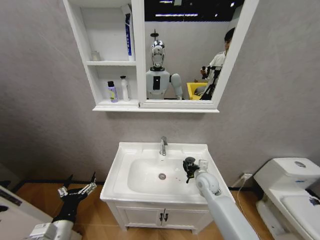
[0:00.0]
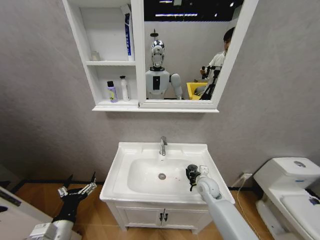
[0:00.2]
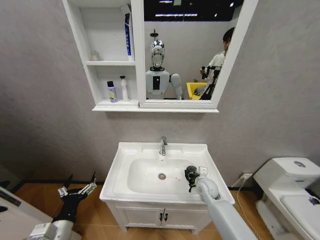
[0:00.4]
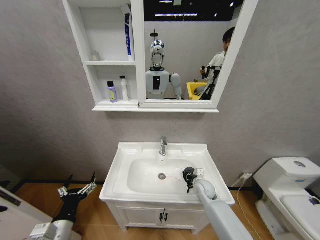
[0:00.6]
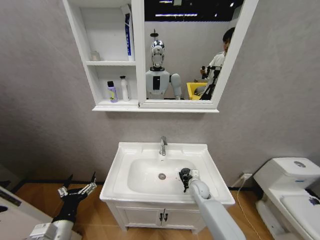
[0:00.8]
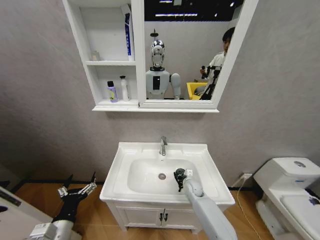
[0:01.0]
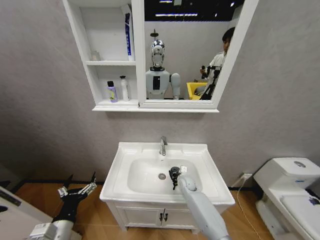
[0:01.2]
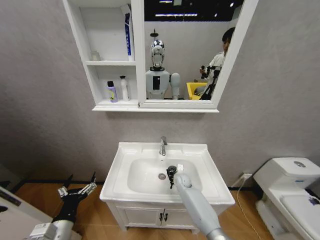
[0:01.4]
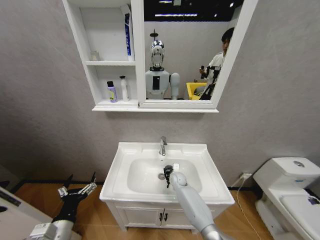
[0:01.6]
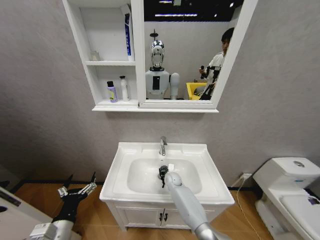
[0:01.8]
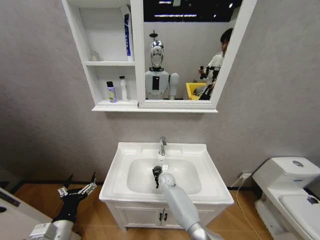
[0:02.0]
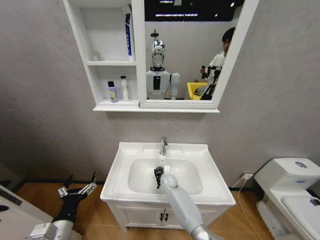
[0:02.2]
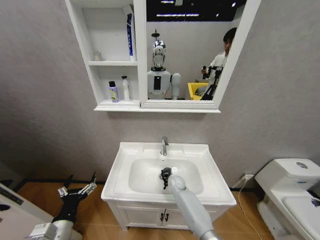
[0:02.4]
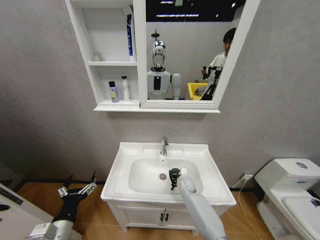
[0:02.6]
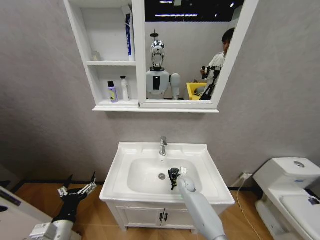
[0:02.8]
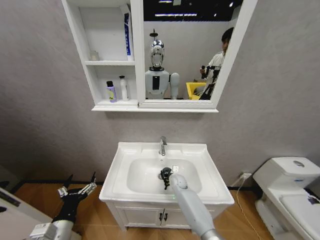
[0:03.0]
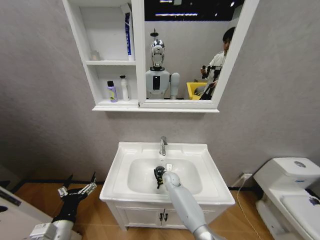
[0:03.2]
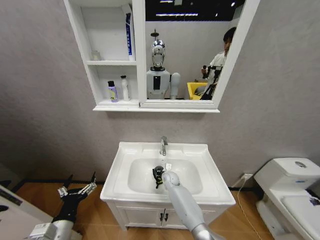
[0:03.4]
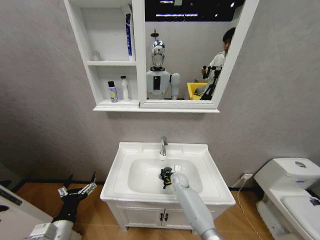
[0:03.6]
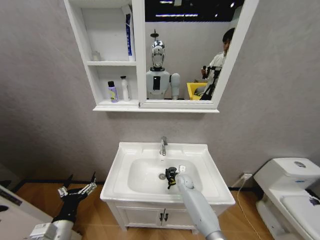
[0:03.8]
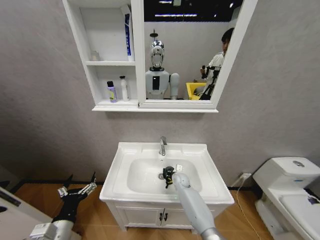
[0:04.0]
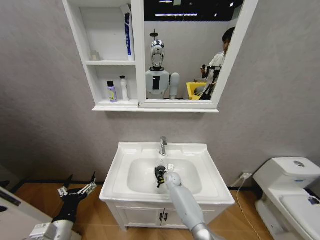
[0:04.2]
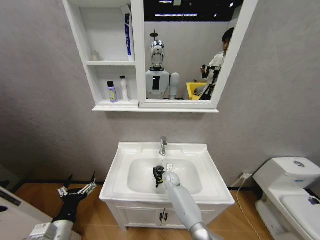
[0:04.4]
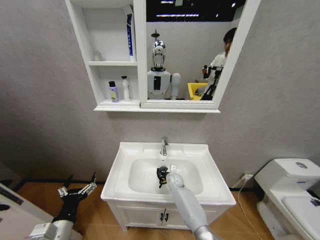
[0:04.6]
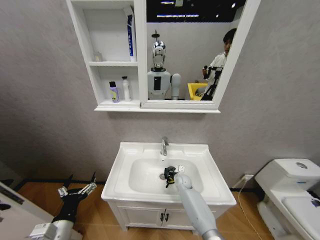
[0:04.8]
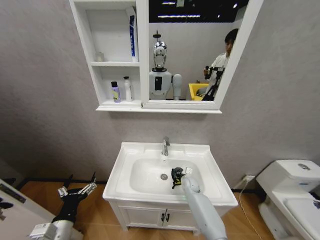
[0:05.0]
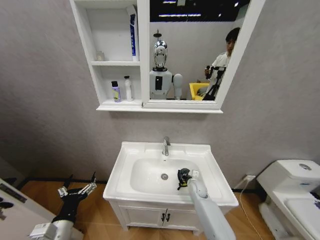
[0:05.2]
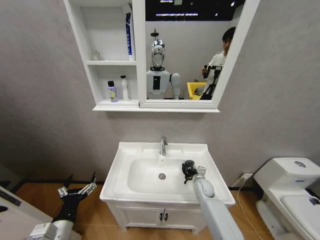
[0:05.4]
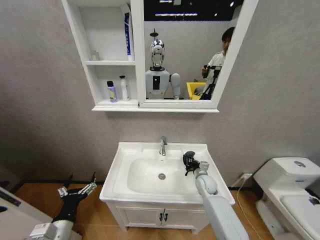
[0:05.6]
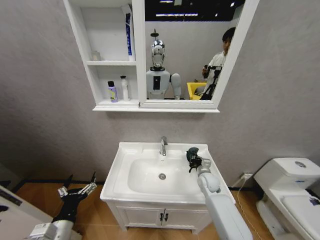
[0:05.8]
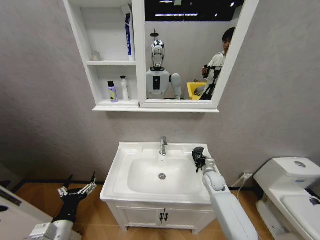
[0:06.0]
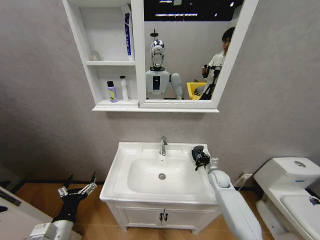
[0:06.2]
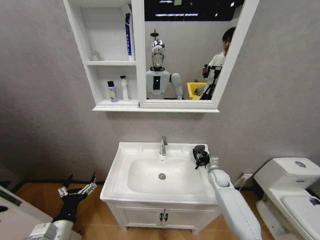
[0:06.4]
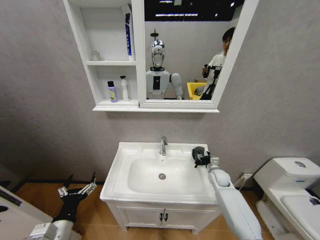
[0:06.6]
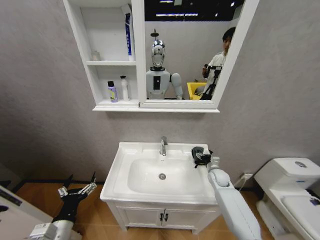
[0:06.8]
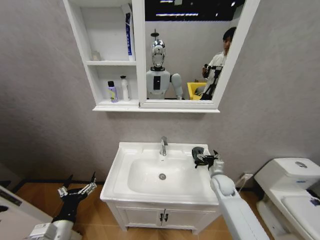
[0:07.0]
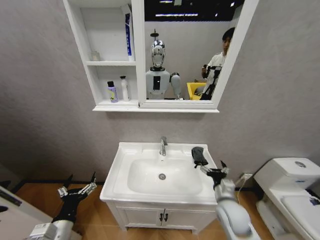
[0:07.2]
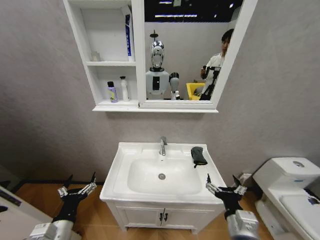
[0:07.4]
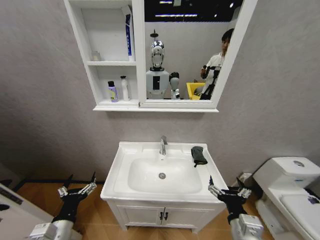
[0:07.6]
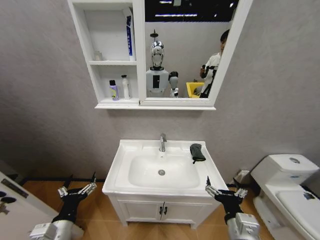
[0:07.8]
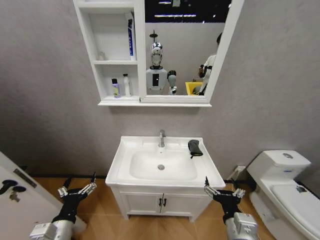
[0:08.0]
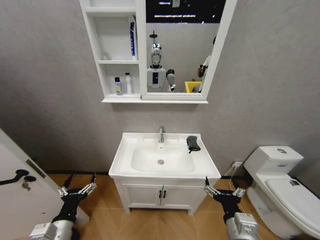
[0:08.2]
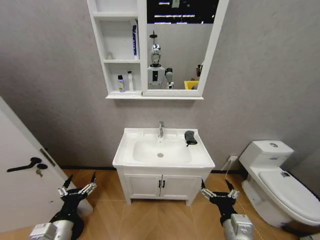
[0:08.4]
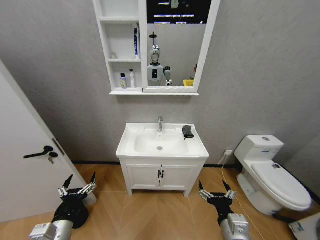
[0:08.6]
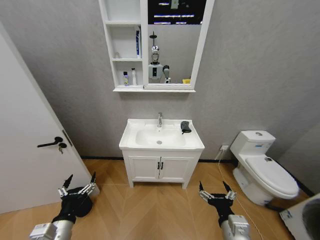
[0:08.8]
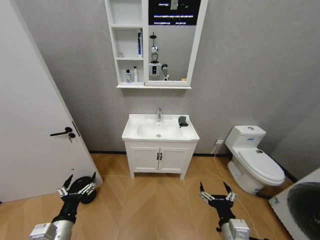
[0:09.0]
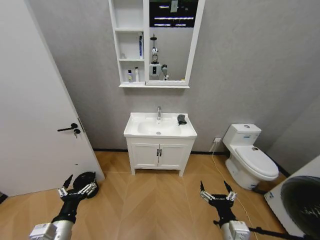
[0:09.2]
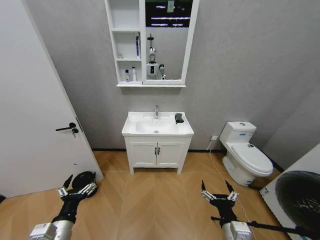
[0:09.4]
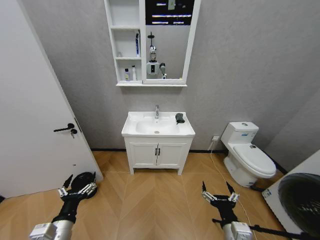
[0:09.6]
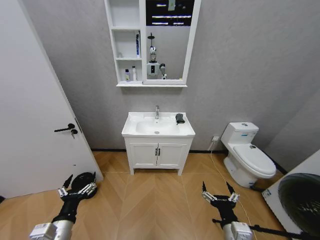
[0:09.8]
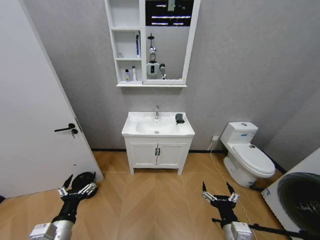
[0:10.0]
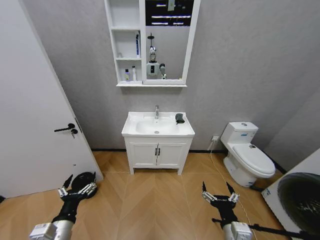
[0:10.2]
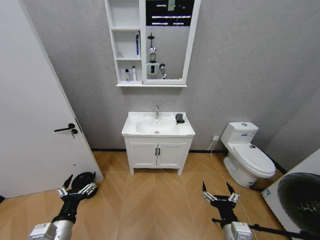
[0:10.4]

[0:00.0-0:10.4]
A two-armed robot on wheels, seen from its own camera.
Task of the whole recording: Move facial cleanser and shampoo from washbasin to cabinet, then wipe washbasin with towel.
0:00.0 to 0:01.4: The right gripper heads downward, forward and to the left, covering roughly 15 cm.
0:01.4 to 0:03.0: The right gripper swings left and right, about 10 cm each way, with 2 reversals.
0:03.0 to 0:04.4: The right gripper goes left and right, about 10 cm each way, reversing 2 times.
0:04.4 to 0:06.0: The right gripper is displaced to the right by roughly 20 cm.
0:06.0 to 0:07.4: The right gripper goes approximately 30 cm backward, and opens up.
0:09.0 to 0:10.4: The grippers make only small movements.

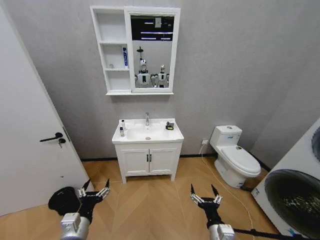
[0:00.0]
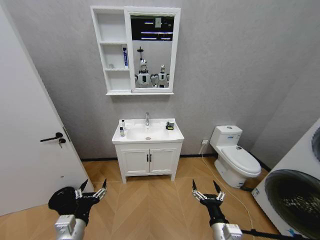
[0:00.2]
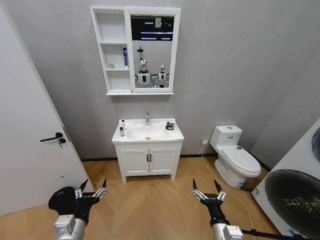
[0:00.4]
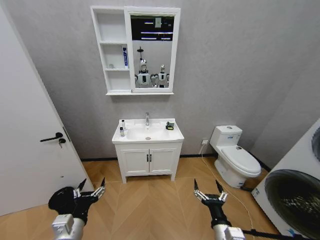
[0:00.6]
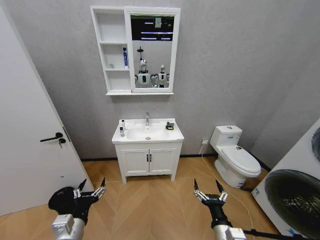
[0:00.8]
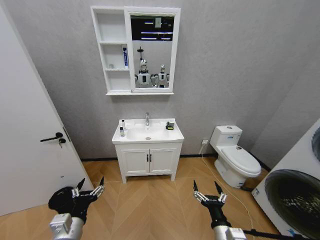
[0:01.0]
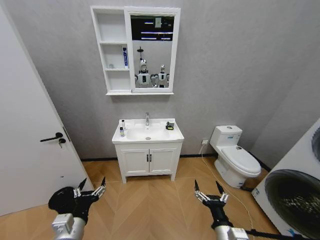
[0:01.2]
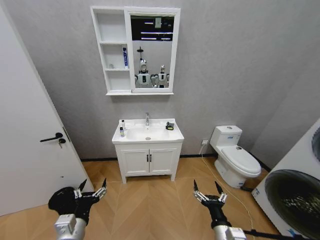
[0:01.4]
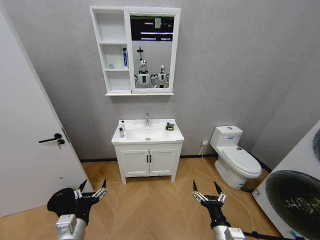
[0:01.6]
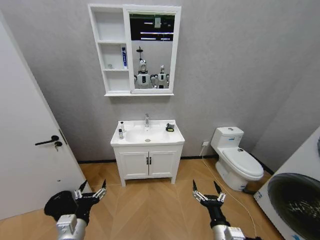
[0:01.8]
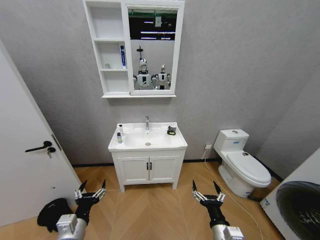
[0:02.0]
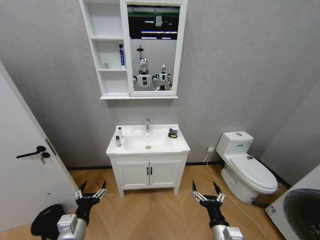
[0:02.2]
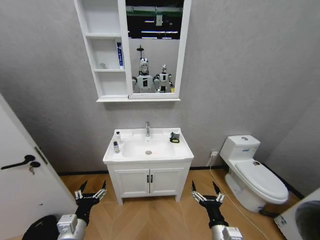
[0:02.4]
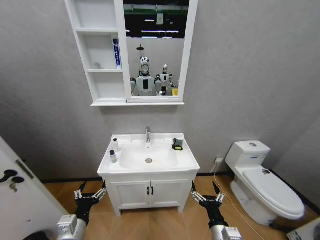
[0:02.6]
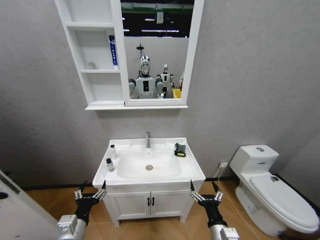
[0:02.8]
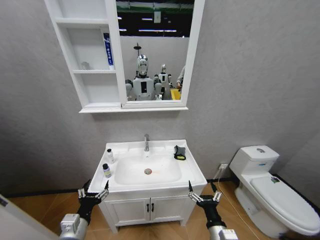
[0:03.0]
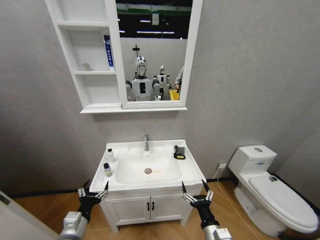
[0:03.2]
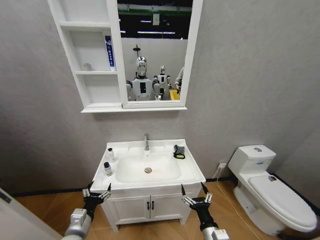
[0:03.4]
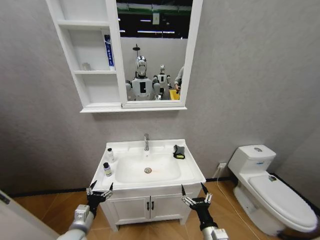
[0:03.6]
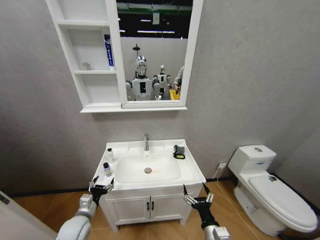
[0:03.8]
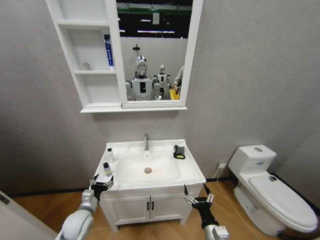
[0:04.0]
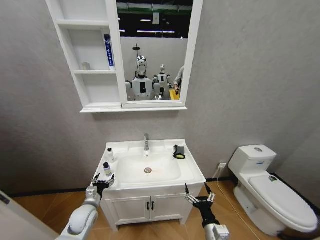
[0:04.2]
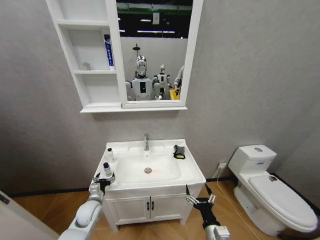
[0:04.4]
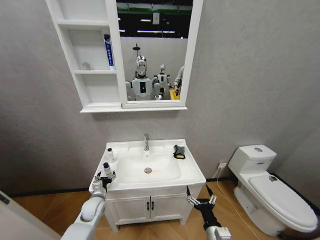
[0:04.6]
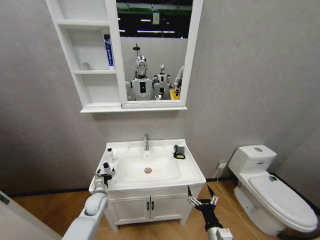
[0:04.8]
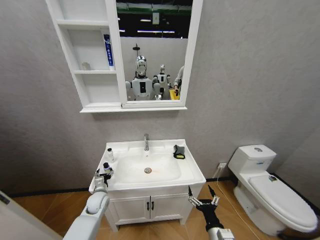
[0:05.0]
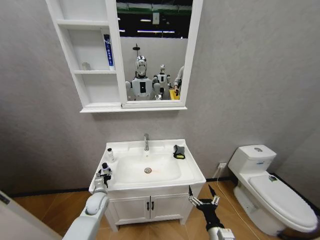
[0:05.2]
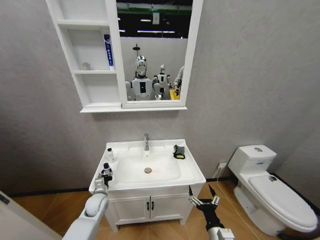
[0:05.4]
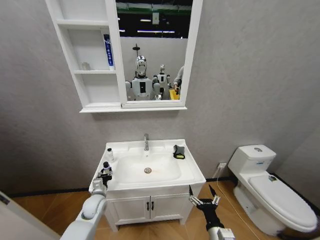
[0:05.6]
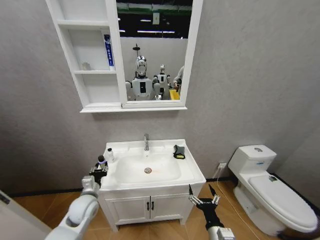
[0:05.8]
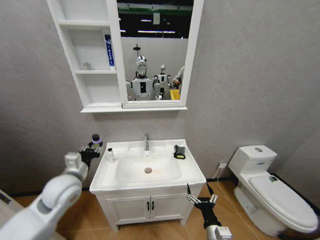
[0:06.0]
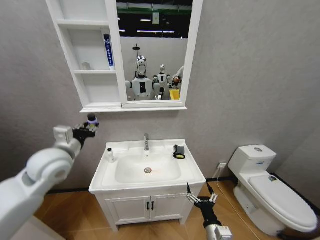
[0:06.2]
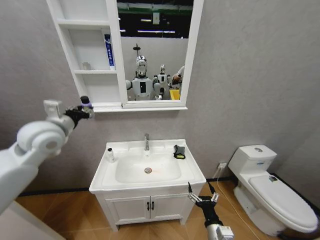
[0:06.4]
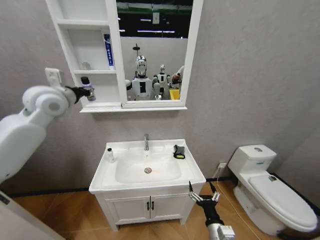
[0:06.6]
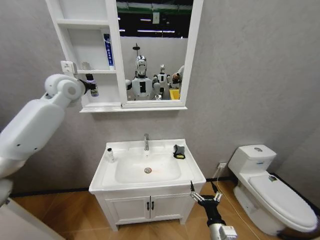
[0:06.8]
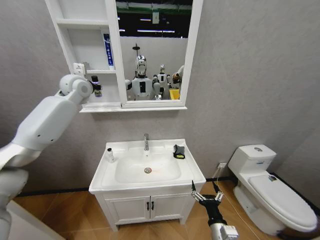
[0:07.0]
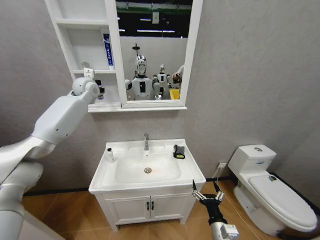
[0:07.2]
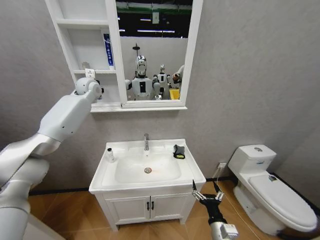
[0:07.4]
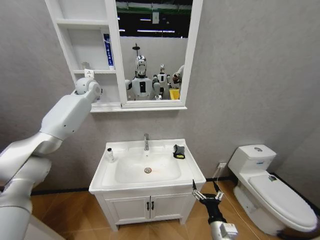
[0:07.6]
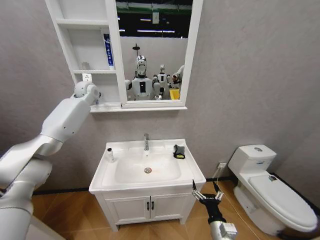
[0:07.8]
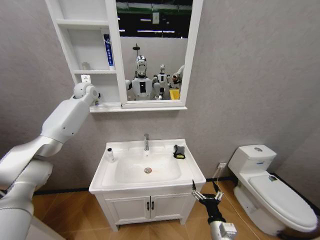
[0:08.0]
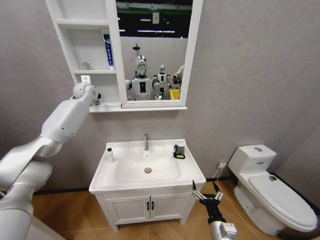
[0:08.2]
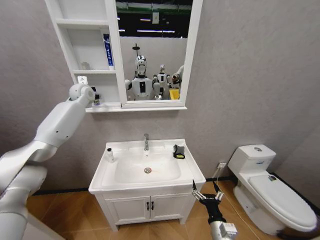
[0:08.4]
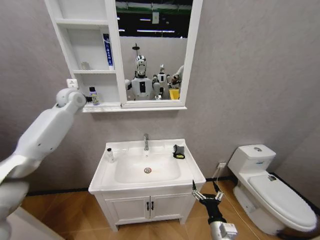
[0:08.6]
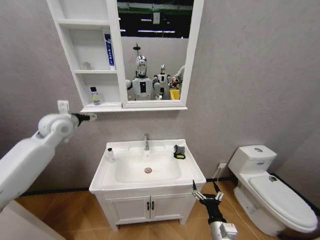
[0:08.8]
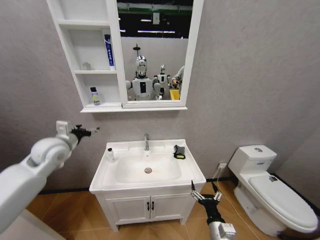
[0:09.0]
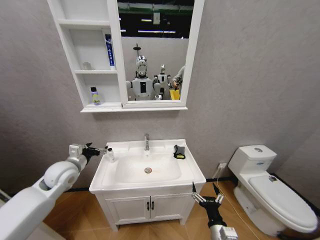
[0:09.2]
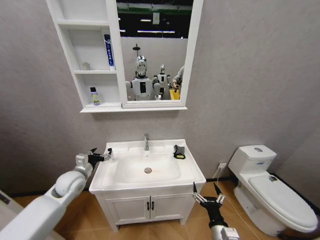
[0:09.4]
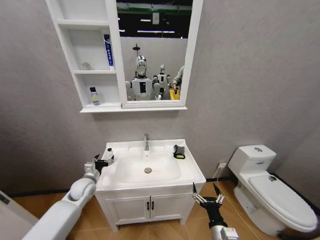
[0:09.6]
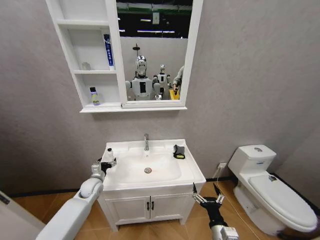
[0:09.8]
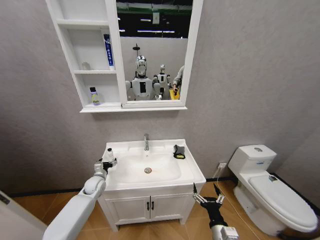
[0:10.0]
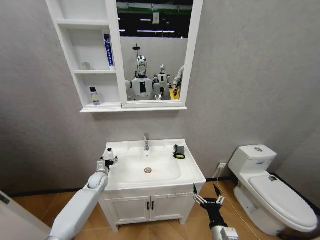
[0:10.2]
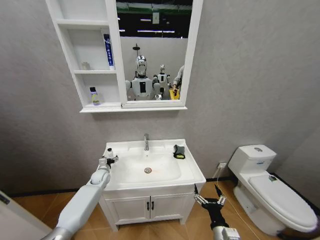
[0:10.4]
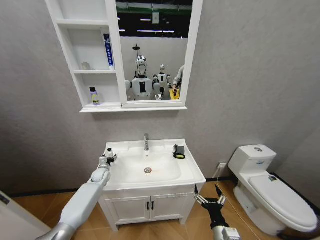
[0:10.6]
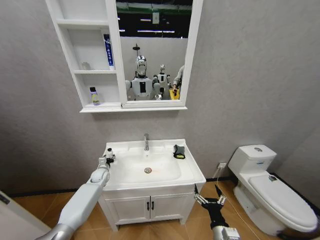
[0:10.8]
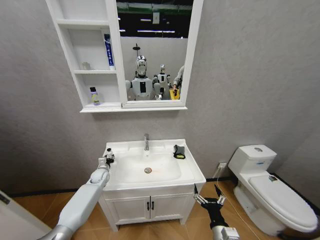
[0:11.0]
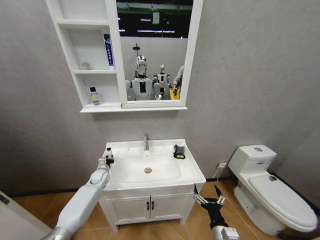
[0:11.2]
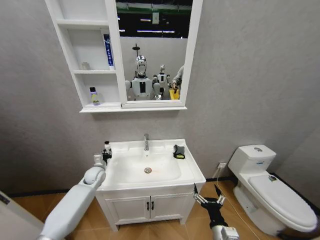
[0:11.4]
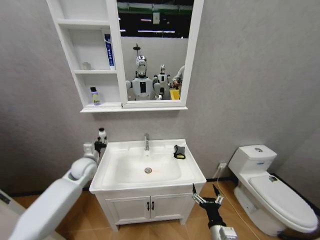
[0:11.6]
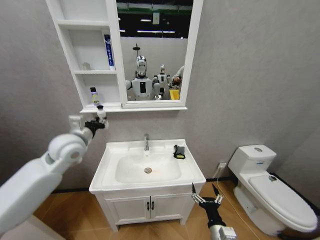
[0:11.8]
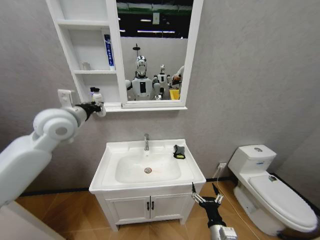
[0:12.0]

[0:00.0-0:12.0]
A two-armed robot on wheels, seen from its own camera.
Task of the whole recording: Move facial cleanser and shampoo from washbasin to cabinet, then wipe washbasin with towel.
0:03.0 to 0:04.4: The left gripper heads forward and downward, covering some 20 cm.
0:04.4 to 0:06.0: The left gripper shifts approximately 20 cm upward, and closes its fingers.
0:06.0 to 0:07.6: The left gripper goes roughly 40 cm forward and upward.
0:07.6 to 0:09.0: The left gripper shifts some 30 cm backward and downward, and opens up.
0:09.0 to 0:10.4: The left gripper moves downward, some 30 cm.
0:10.4 to 0:12.0: The left gripper travels upward by approximately 40 cm, and closes.
